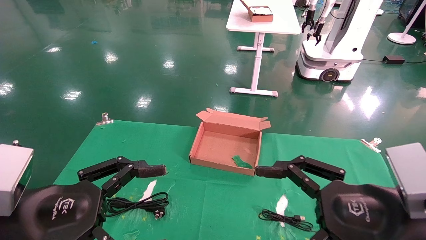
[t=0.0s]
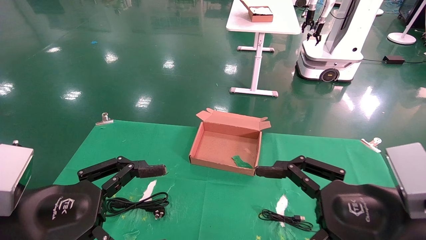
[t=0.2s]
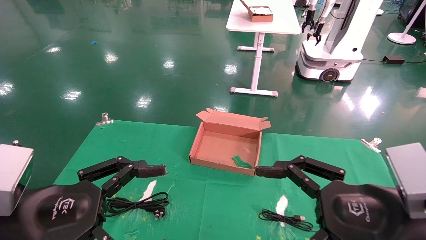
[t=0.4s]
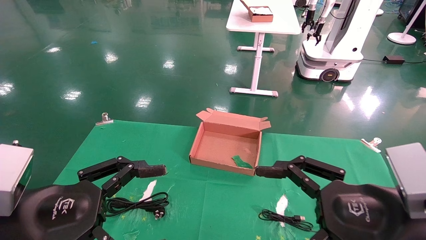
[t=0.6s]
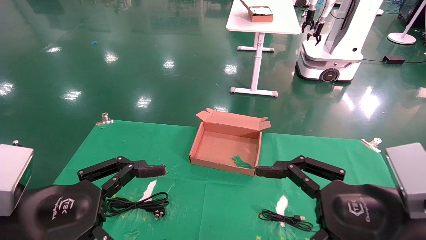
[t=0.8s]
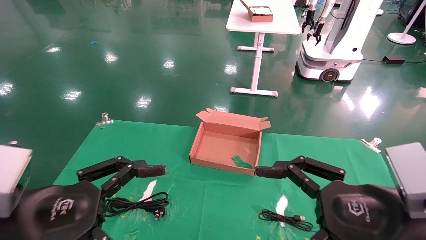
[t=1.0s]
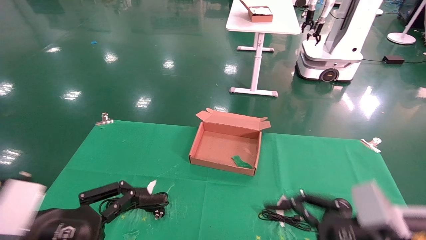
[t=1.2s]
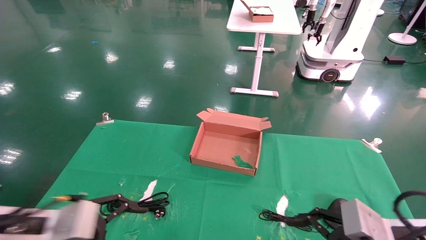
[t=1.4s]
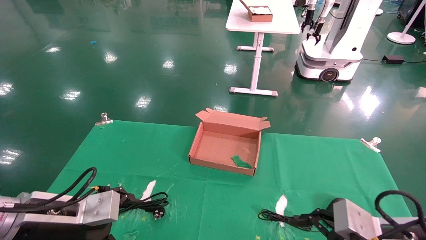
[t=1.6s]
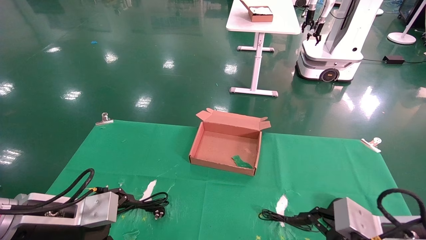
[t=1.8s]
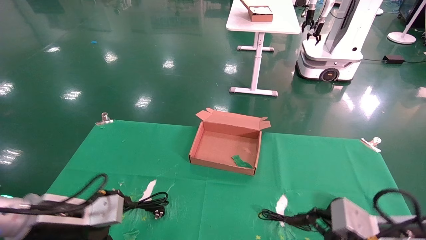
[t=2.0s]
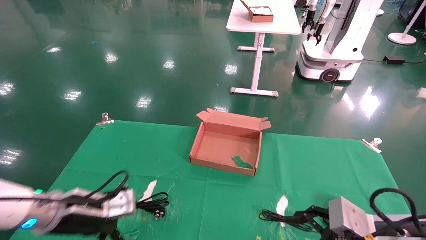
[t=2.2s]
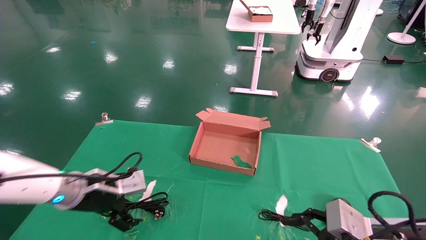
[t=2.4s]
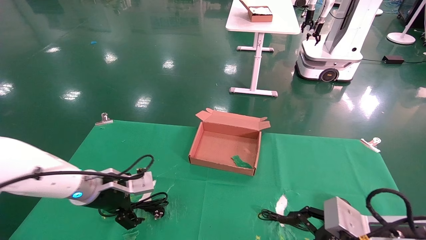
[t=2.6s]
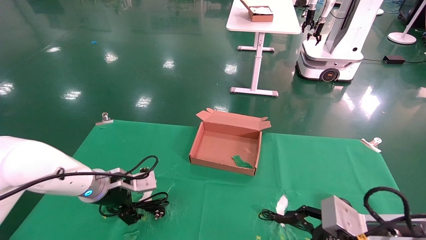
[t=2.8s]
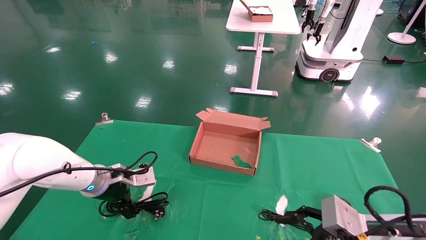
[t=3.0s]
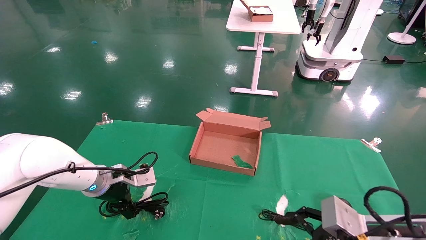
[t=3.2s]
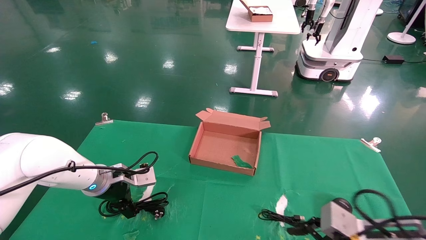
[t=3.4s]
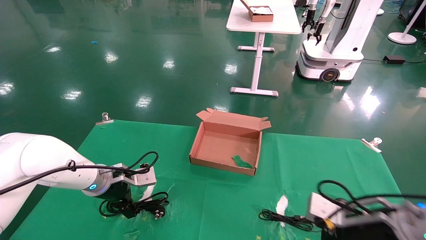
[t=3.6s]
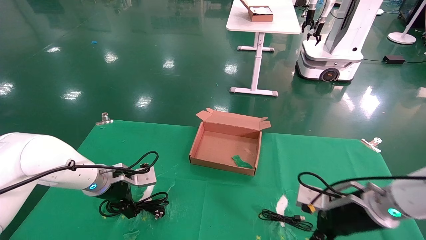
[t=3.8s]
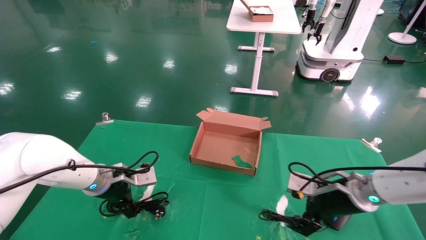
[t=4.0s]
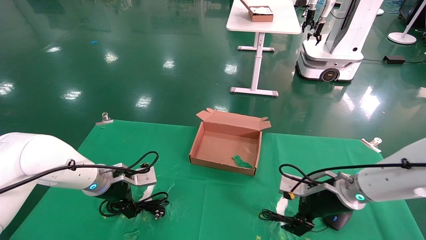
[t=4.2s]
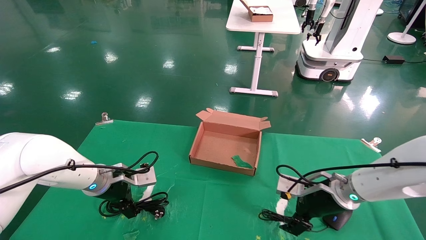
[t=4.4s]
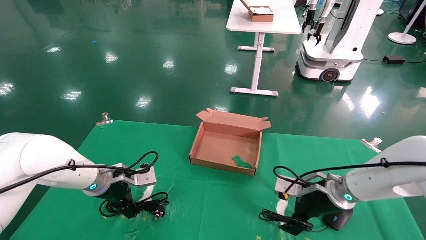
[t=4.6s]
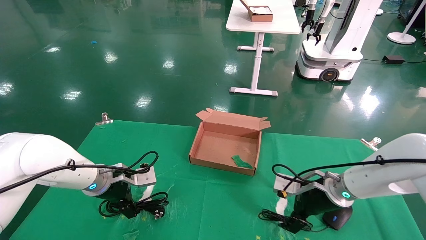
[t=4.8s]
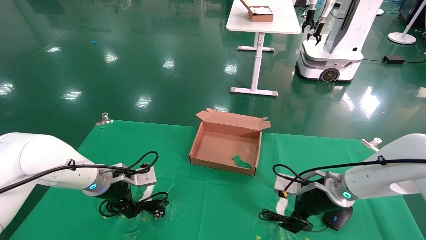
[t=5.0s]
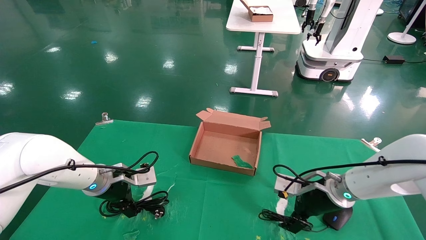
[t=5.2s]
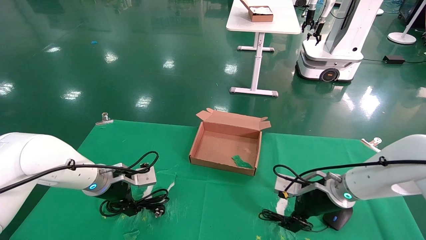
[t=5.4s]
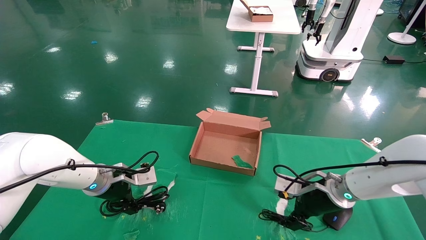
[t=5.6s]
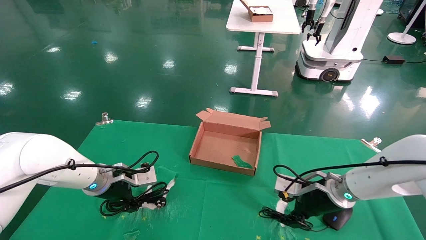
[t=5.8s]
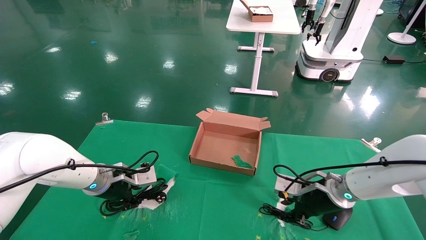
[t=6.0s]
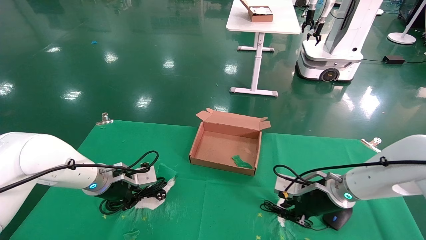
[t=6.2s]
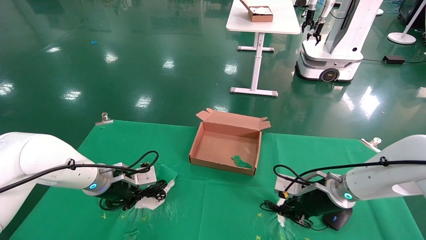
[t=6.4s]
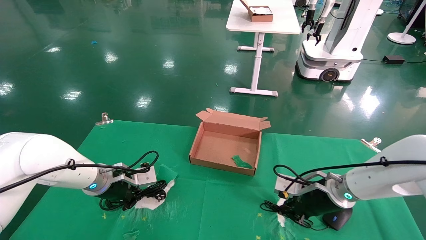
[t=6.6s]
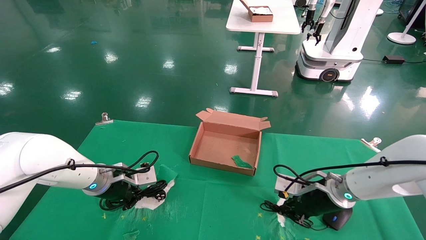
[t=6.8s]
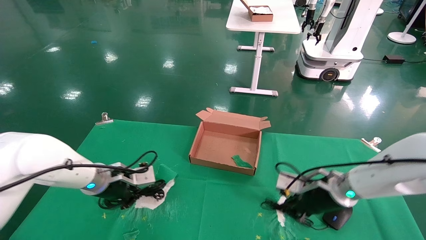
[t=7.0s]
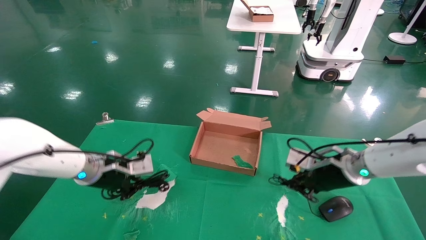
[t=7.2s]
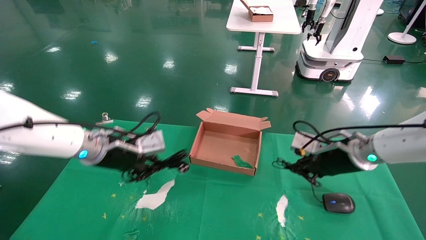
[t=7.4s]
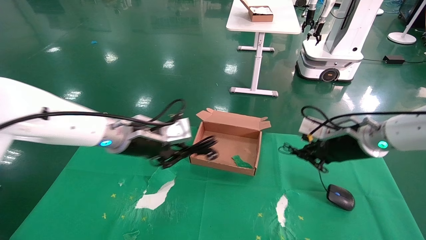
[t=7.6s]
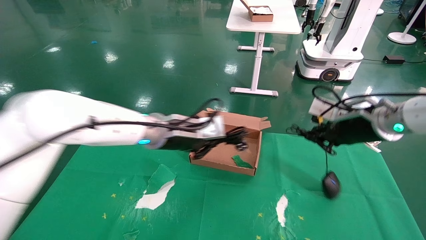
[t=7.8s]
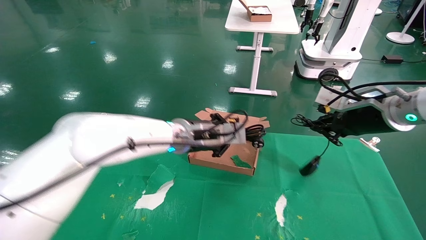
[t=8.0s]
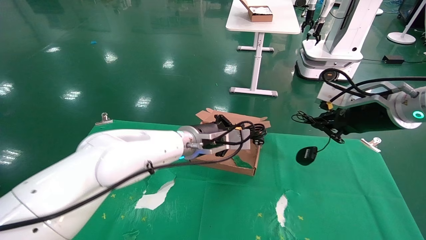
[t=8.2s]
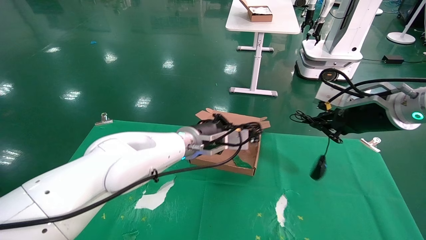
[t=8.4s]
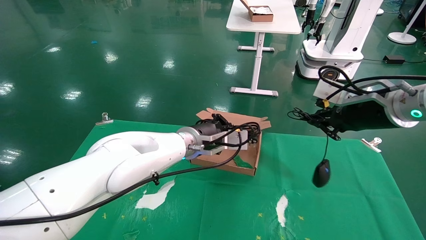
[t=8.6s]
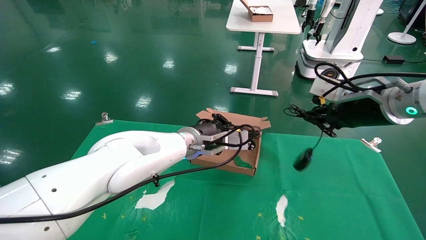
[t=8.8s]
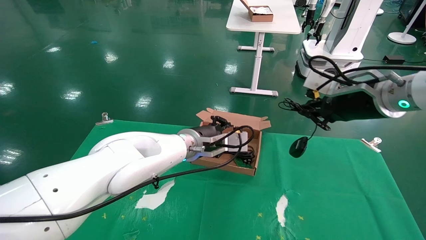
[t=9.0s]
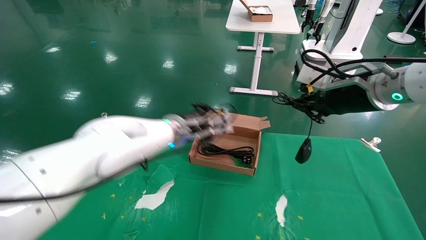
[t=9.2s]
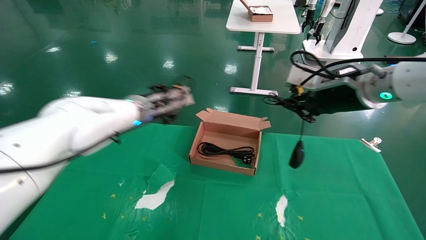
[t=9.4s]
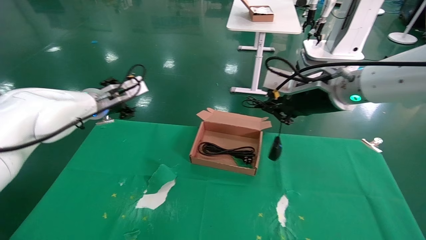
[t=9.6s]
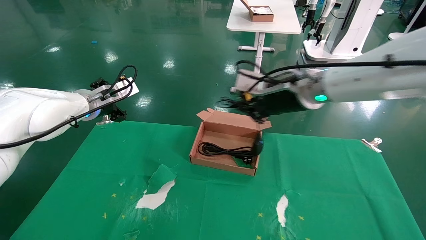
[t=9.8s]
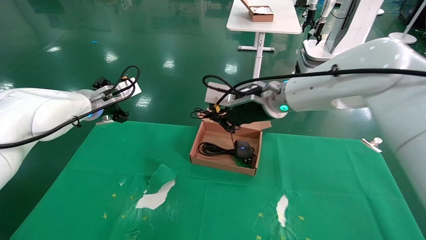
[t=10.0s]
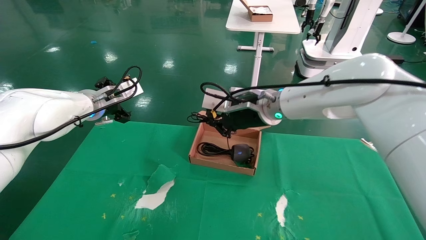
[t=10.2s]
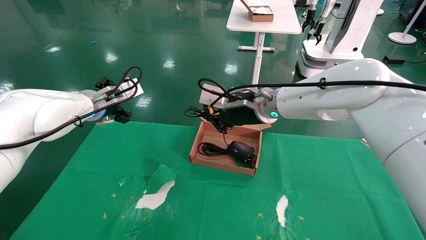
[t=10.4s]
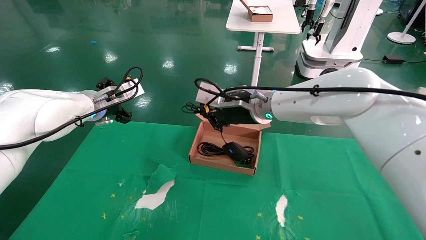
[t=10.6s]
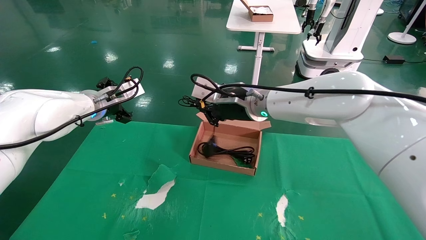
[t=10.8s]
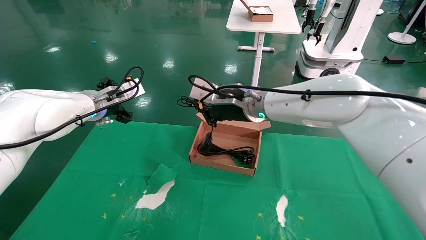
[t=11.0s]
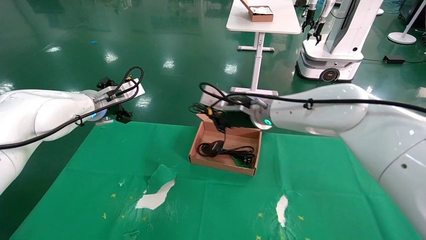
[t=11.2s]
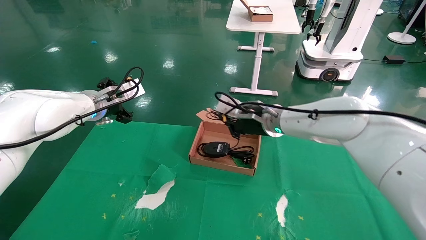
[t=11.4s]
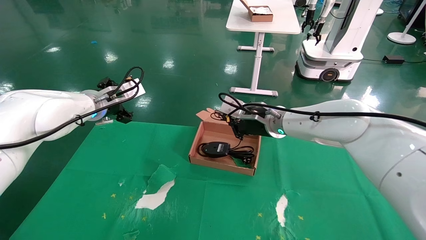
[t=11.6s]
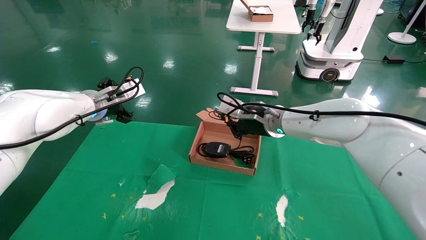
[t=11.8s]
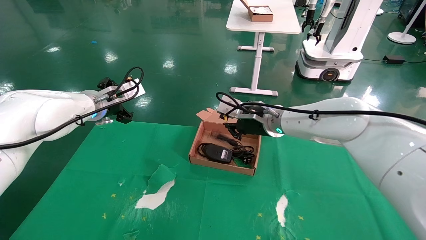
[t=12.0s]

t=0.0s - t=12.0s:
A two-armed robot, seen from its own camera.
Step, t=1.8s - t=6.2s: Grab and lift both the mouse and power cord from the accessory packaging area at the same time.
t=0.0s - t=1.6s: The right gripper is displaced downward by roughly 10 cm; the left gripper travels forward and downward by about 10 cm.
t=1.6s - t=3.0s: The left gripper travels forward by about 15 cm.
t=3.0s - t=4.4s: The right gripper is displaced forward by approximately 15 cm.
t=4.4s - t=6.0s: The left gripper closes its fingers. The right gripper closes up.
t=6.0s - t=7.6s: The left gripper goes approximately 15 cm upward and to the right. The right gripper moves upward, about 15 cm, and closes its fingers.
t=7.6s - t=9.0s: The right gripper goes approximately 10 cm upward, while the left gripper travels to the right and forward by some 10 cm.
t=9.0s - t=10.4s: The right gripper goes approximately 20 cm to the left and forward; the left gripper is displaced to the left by approximately 20 cm, and opens its fingers.
t=10.4s - t=12.0s: The right gripper ends up roughly 5 cm from where it was.

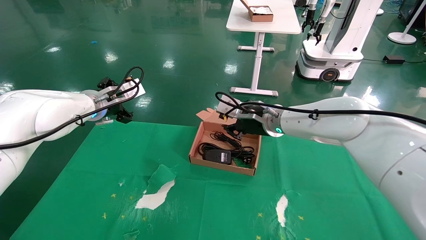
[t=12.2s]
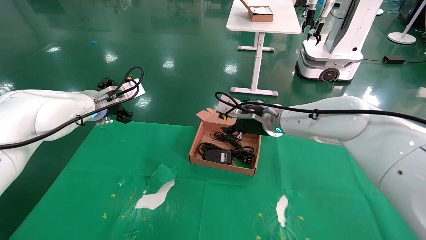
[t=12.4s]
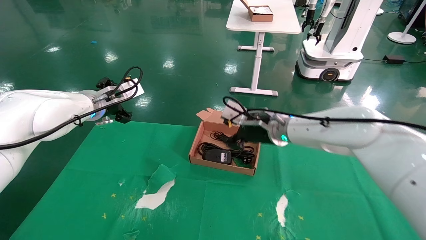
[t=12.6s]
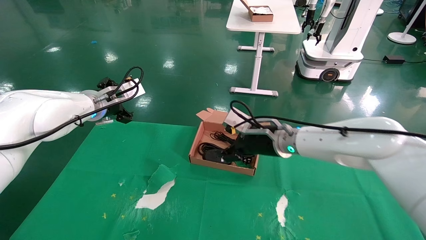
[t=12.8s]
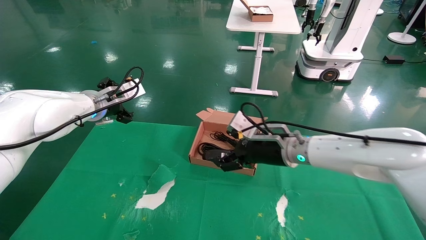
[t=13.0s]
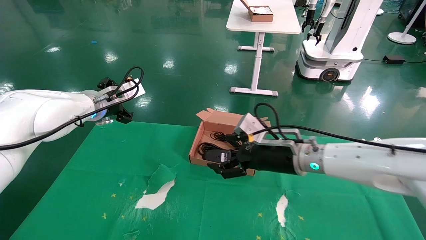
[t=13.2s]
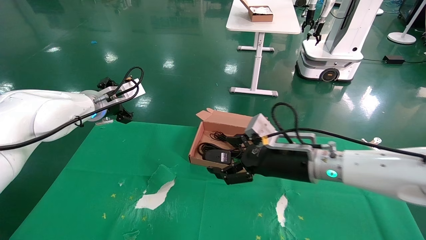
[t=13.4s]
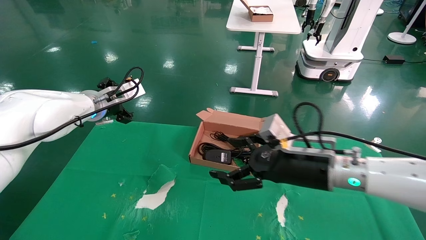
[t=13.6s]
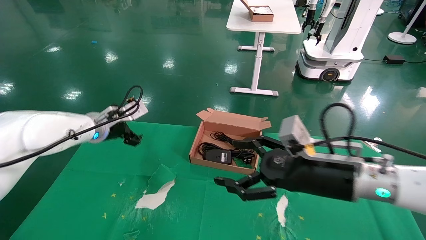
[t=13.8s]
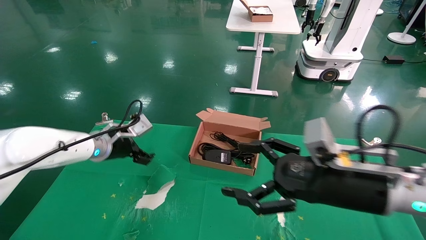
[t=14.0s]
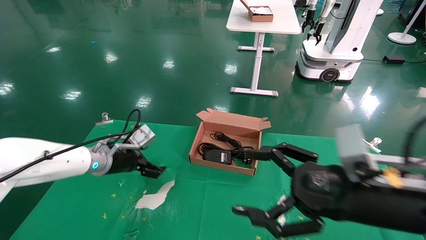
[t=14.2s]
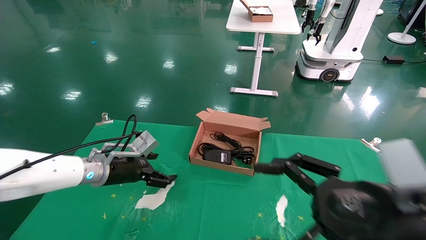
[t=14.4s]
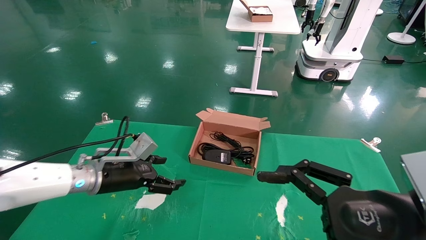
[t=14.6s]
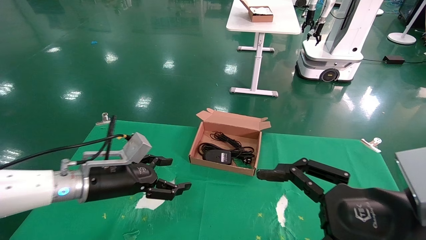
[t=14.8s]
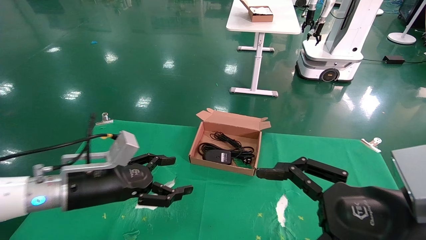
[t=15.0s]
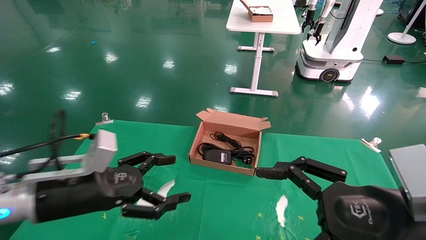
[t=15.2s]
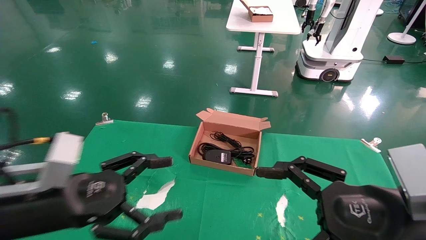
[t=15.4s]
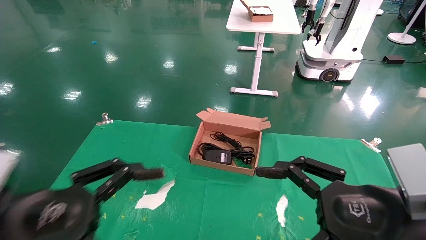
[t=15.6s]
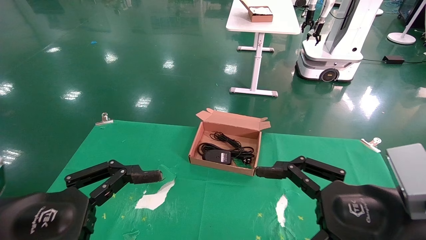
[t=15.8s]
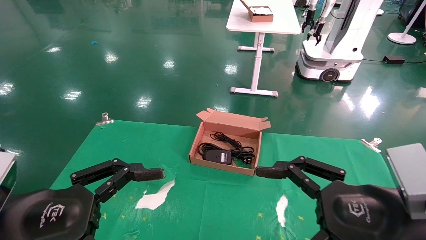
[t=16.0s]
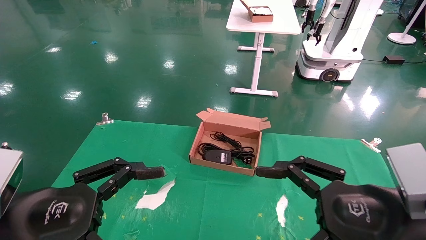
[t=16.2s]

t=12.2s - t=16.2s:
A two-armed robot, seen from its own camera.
t=12.2s - t=13.6s: The right gripper is displaced backward, to the right and downward by some 15 cm, and opens its fingers.
t=13.6s - t=14.8s: The left gripper travels backward and downward by approximately 15 cm, while the right gripper travels backward and to the right by roughly 15 cm.
t=14.8s - t=16.2s: The left gripper shifts roughly 20 cm backward.
